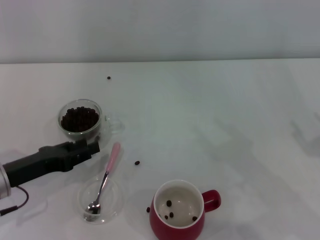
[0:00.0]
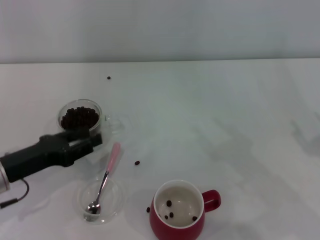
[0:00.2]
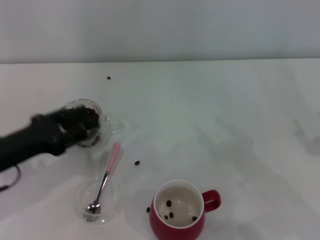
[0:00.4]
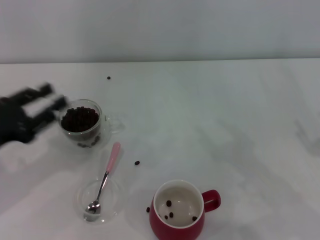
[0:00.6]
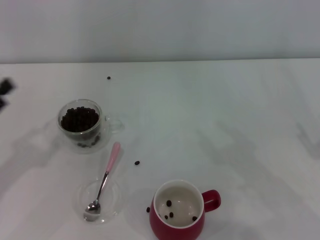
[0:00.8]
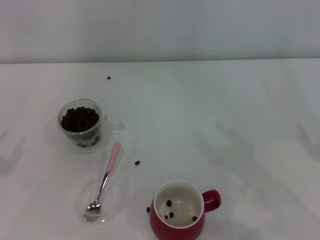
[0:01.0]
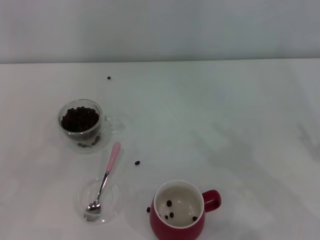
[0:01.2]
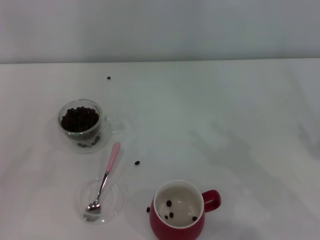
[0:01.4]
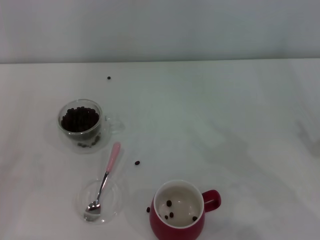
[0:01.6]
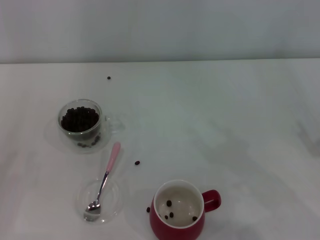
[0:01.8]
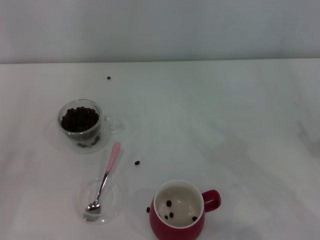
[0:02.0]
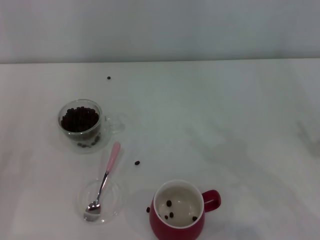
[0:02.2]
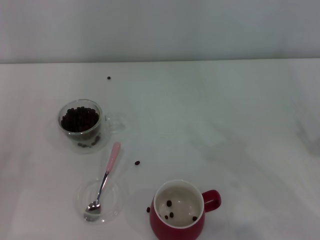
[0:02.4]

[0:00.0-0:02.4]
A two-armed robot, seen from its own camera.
Task of the whole recording: Use a pink spoon to take out the coffee beans from the glass and pour them into the red cup.
0:00.0 to 0:01.2: The left gripper shifts about 15 cm to the left and backward.

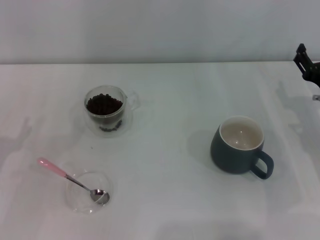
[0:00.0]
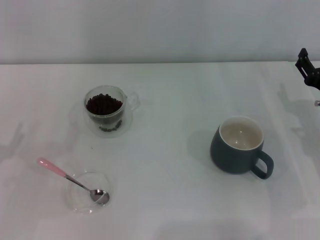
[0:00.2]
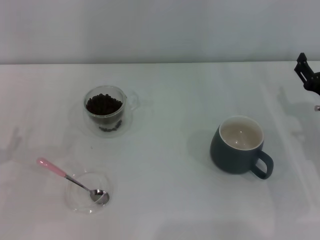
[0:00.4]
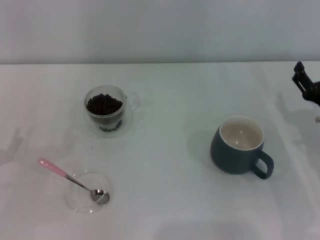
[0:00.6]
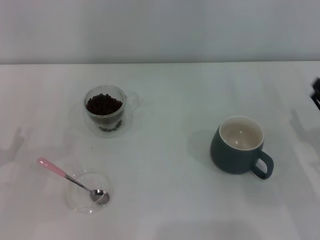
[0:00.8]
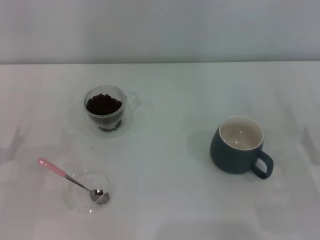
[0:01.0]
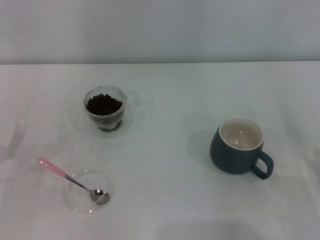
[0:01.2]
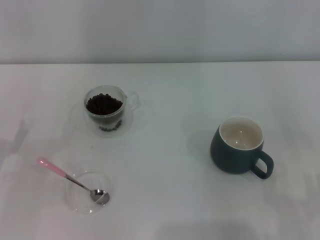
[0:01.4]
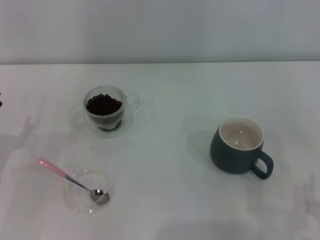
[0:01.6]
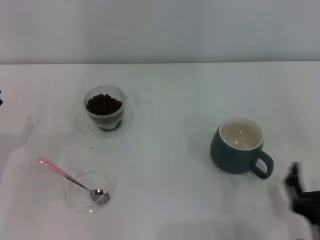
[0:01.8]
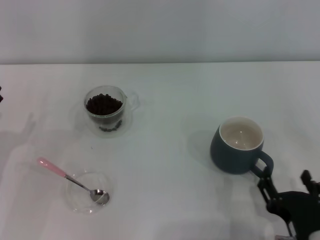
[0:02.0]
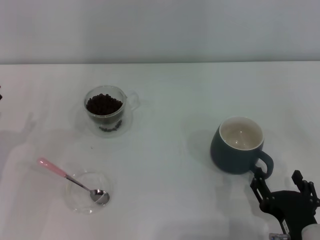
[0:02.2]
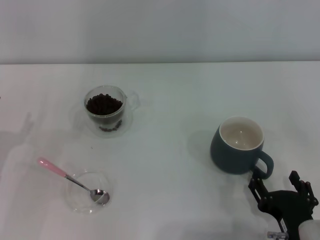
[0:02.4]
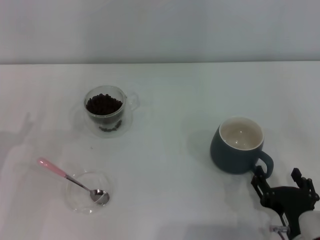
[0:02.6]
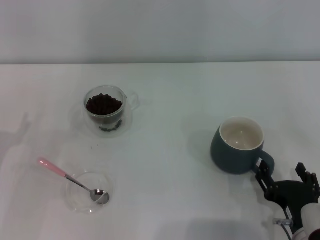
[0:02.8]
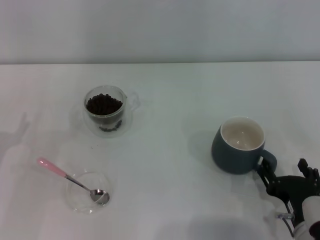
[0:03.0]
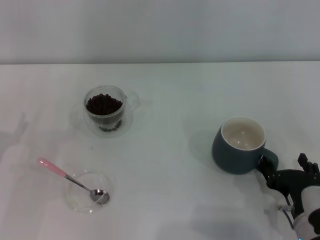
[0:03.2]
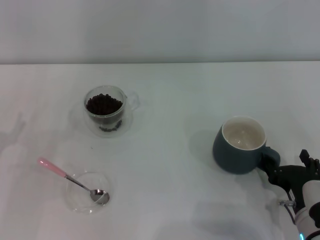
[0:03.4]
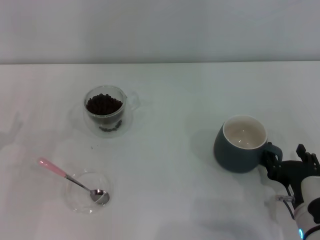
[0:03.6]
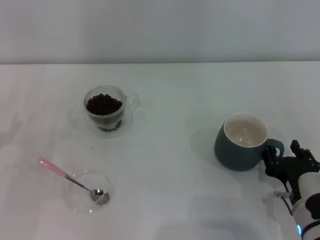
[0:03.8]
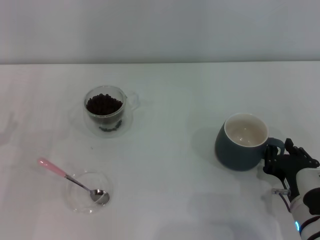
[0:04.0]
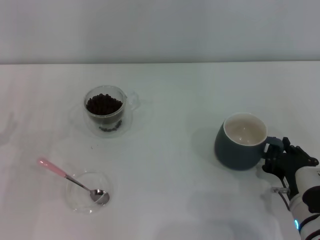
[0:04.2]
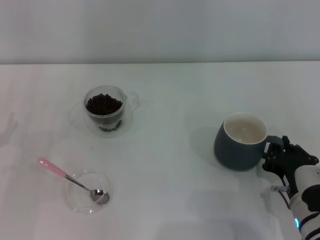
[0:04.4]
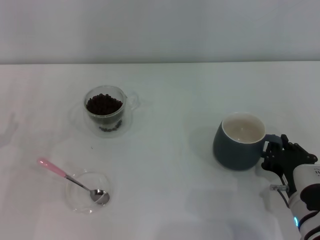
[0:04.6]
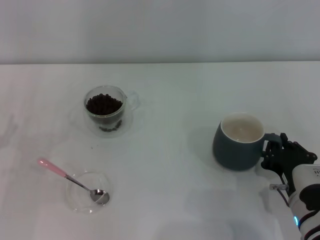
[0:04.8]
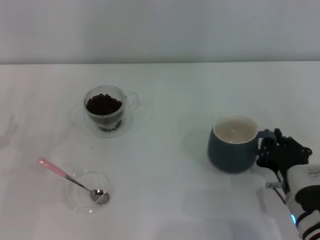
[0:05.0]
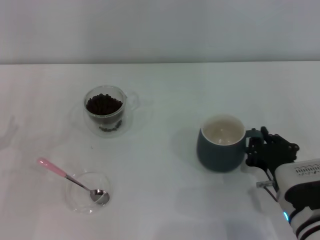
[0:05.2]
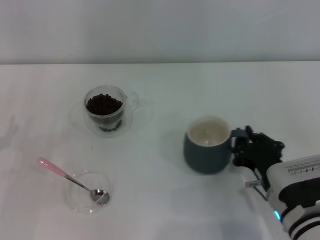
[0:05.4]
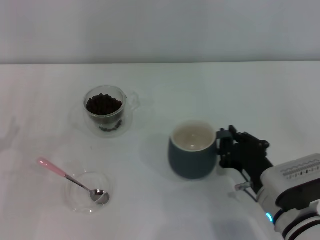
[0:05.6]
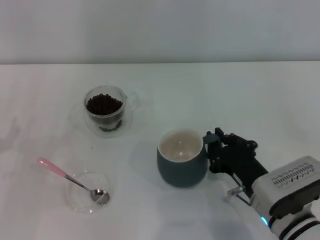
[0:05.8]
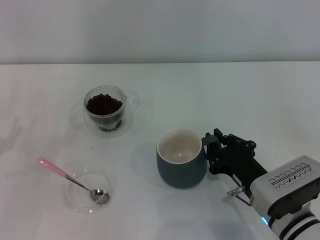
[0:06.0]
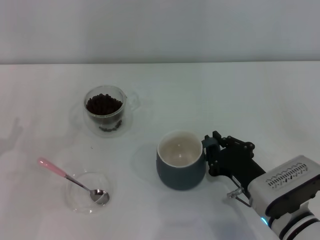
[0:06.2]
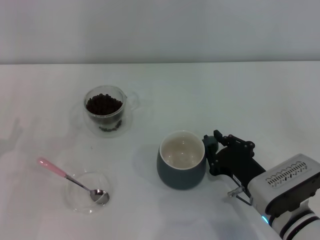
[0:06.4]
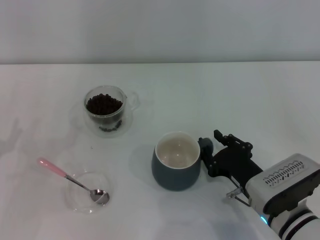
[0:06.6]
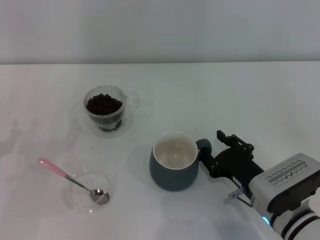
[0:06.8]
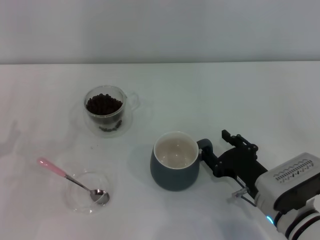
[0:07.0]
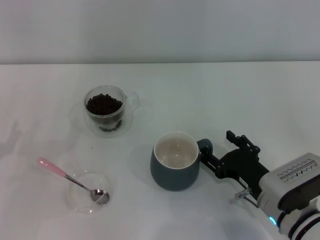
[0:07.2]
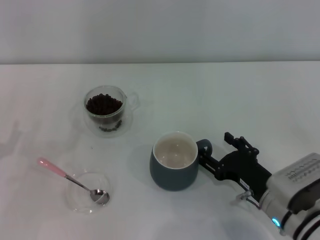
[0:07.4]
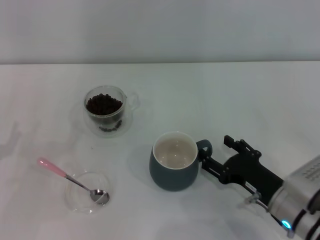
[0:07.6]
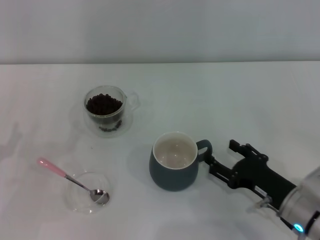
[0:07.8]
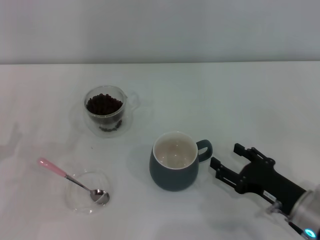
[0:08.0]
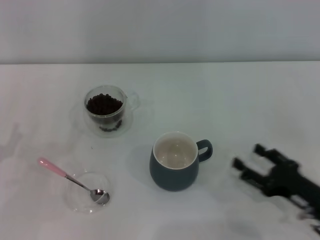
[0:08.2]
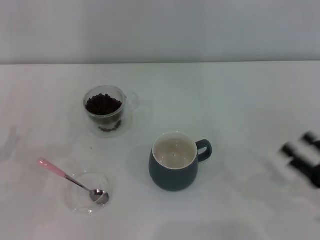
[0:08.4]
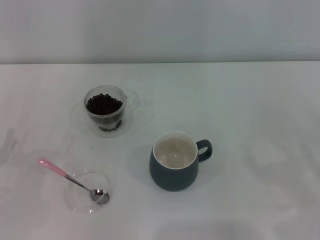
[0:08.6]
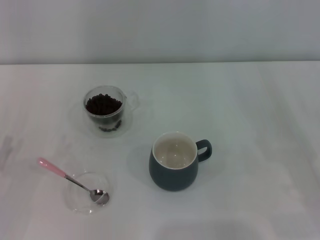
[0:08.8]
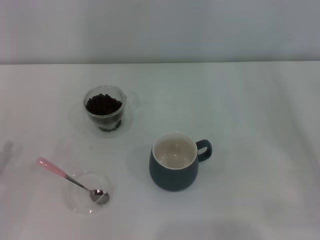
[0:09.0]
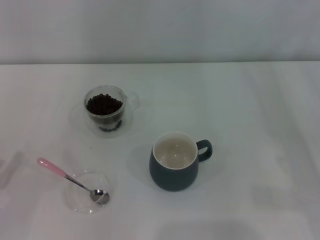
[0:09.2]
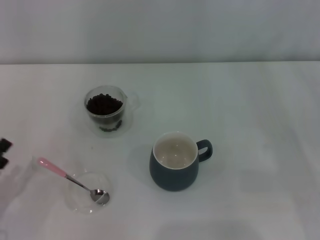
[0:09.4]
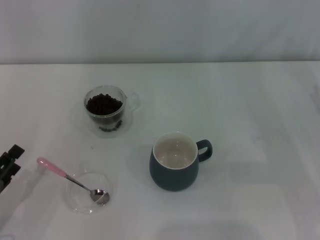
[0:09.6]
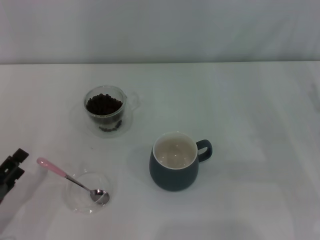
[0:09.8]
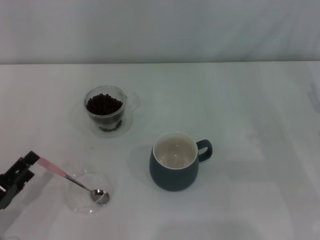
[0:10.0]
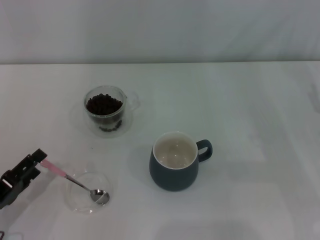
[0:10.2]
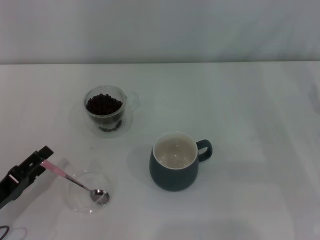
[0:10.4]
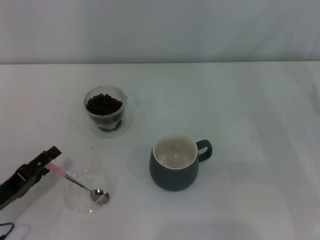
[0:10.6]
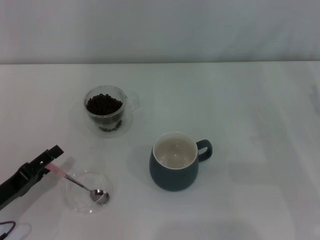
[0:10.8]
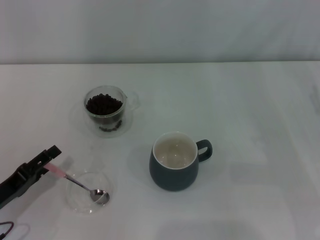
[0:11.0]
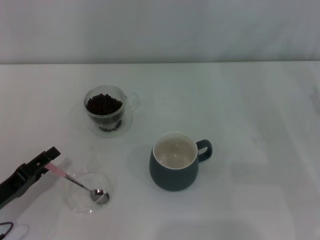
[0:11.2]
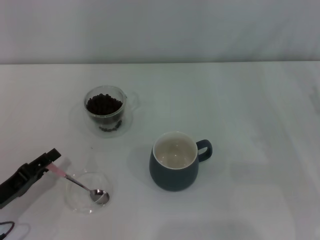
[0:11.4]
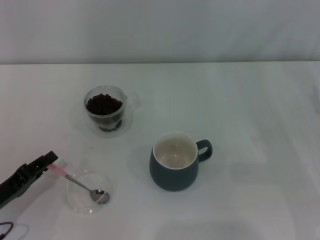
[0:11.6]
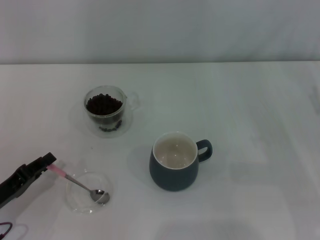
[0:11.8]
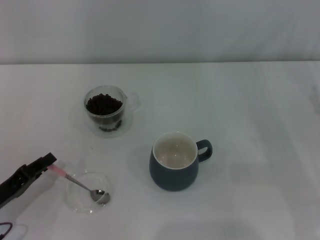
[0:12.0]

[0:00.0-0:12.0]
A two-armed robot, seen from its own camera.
Task of the whole recording: Use a pink spoon to take out the coffee beans from the glass and pour them into the gray cup.
Step, 0:00.0 to 0:08.0: Move the cup to the center of view with the left gripper.
0:00.0 to 0:01.6: The right gripper heads backward, covering approximately 25 cm.
0:01.6 to 0:03.0: The right gripper heads forward, covering about 5 cm.
0:03.0 to 0:04.4: The right gripper closes.
0:06.0 to 0:07.6: The right gripper opens.
0:07.6 to 0:09.0: The right gripper is displaced to the right by approximately 15 cm.
0:09.0 to 0:10.4: The left gripper travels to the right by approximately 5 cm.
0:10.4 to 0:12.0: The left gripper closes up.

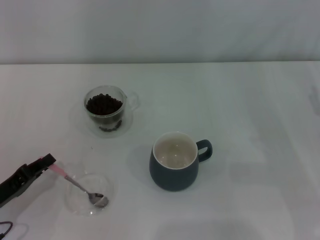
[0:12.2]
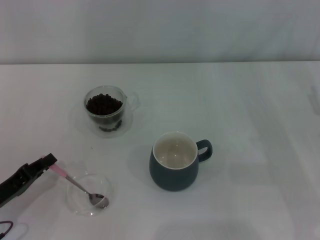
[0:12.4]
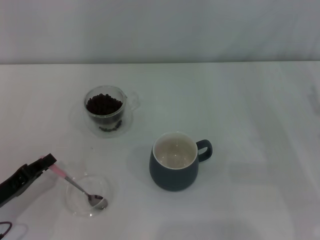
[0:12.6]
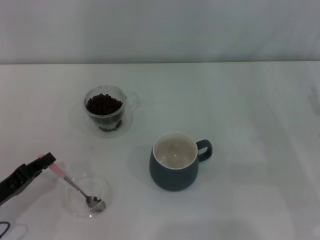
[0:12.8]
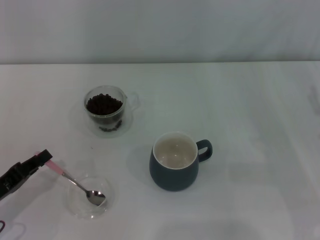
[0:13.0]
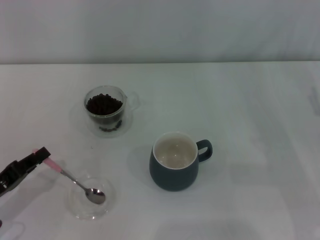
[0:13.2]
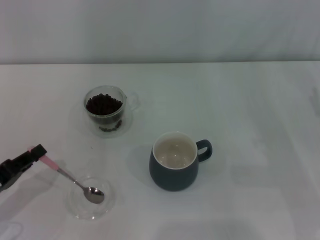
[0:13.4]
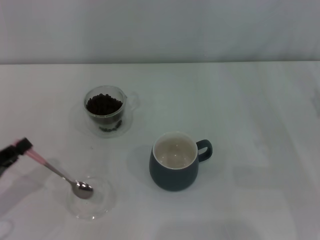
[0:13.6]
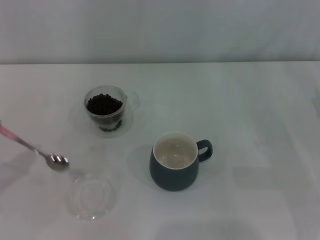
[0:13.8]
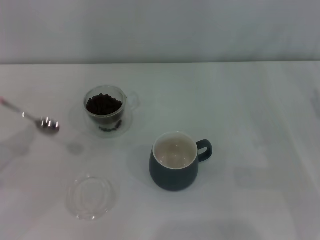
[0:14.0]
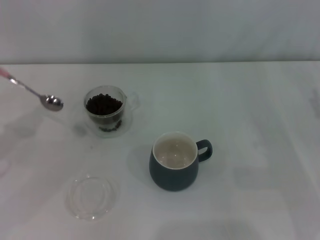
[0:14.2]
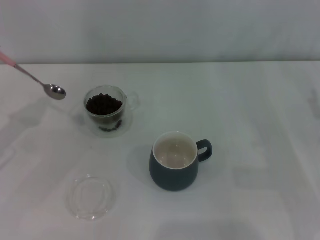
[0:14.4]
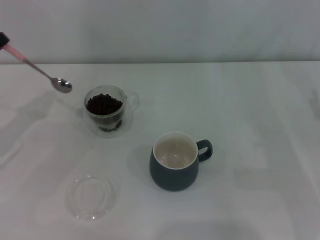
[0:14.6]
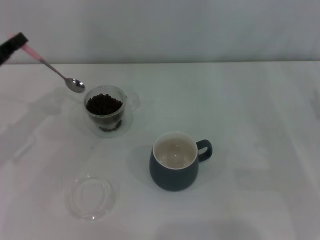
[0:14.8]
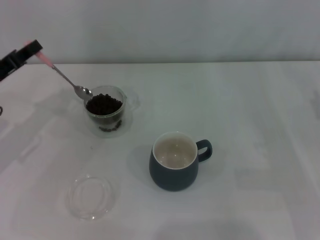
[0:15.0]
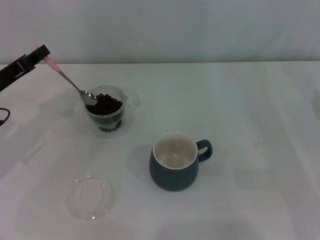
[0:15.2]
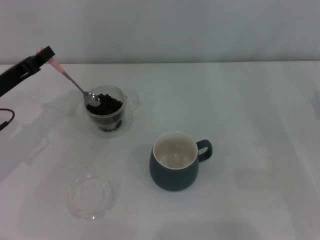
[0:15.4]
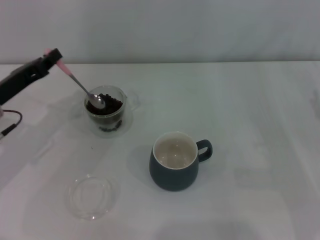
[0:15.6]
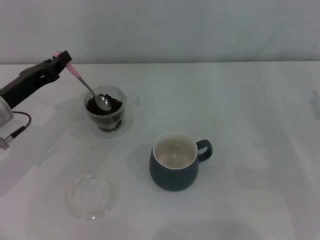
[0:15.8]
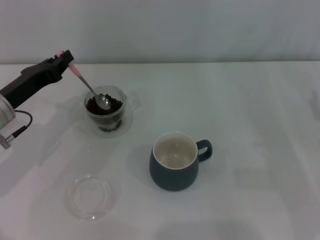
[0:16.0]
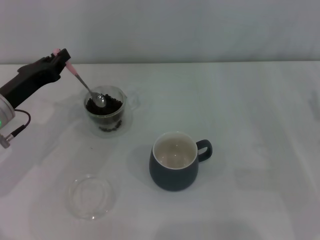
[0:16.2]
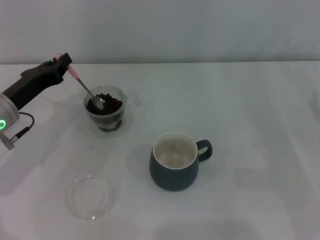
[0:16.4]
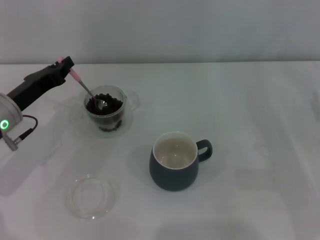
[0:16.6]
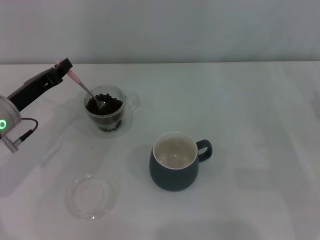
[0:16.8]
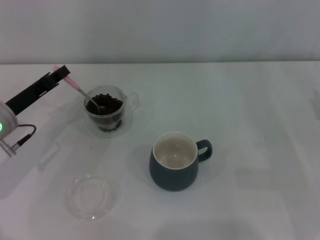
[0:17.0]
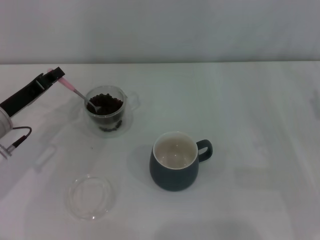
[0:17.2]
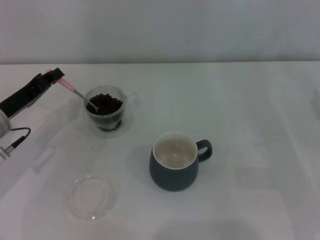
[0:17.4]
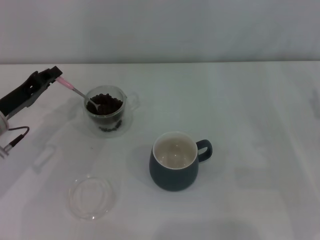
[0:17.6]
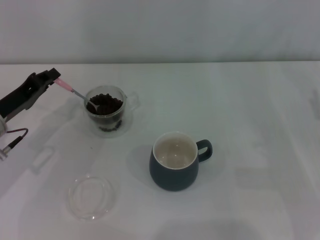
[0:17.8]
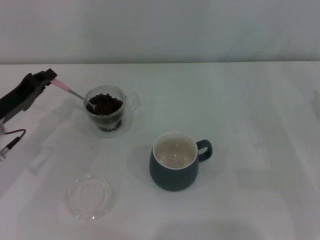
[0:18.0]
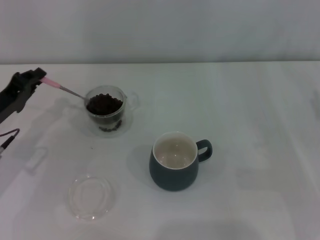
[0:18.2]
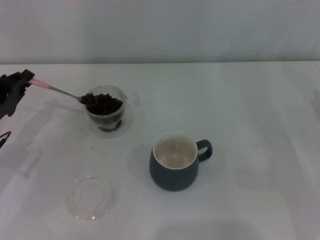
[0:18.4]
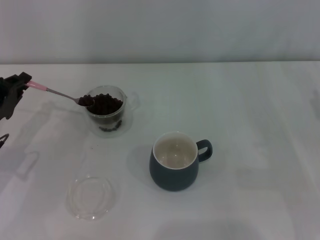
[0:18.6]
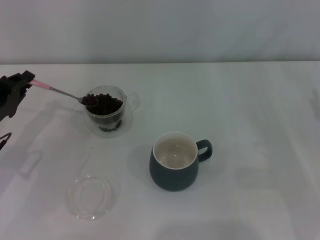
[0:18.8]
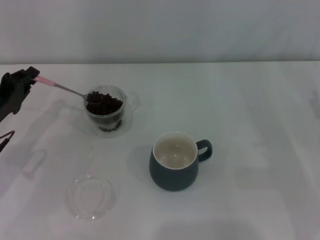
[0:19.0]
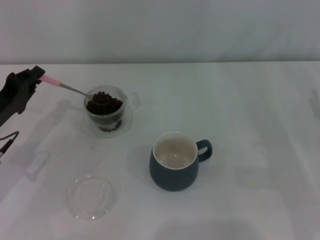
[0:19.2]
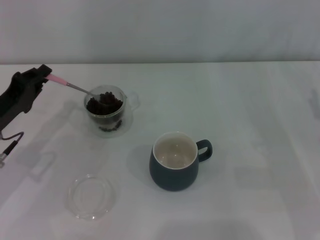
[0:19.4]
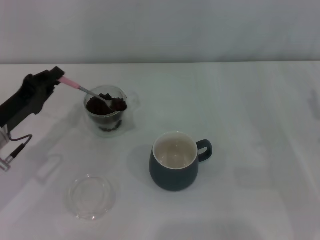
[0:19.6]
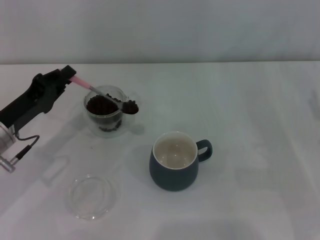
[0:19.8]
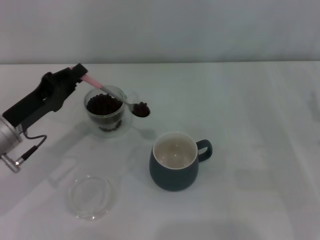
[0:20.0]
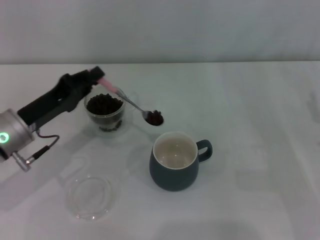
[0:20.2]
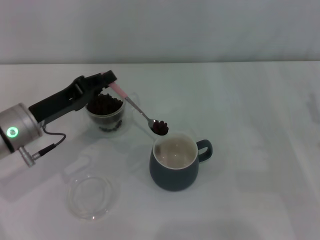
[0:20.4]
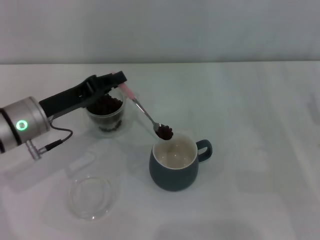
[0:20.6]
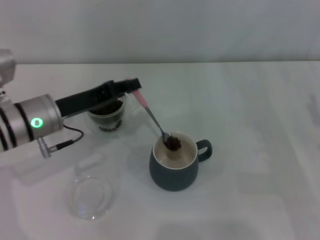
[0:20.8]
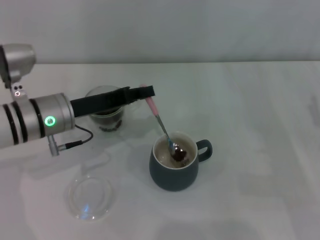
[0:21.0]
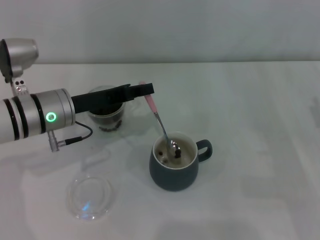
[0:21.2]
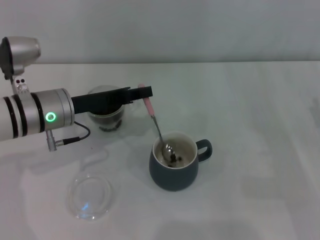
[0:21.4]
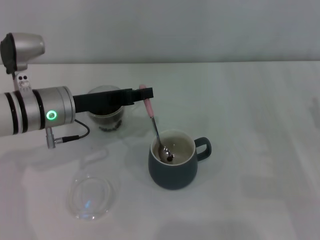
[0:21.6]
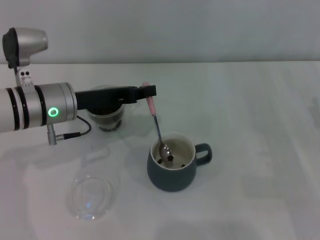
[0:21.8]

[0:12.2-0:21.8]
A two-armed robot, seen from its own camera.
Task of the whole recording: Use a pink spoon to take out the coffee beans from the glass and pour them into the gray cup.
0:12.2 to 0:13.8: The left gripper heads upward and to the left, covering approximately 10 cm.
0:13.8 to 0:15.4: The left gripper goes some 15 cm forward and to the right.
0:15.4 to 0:17.0: The grippers stay close to where they were, moving slightly.
0:18.6 to 0:20.2: The left gripper is displaced to the right by roughly 5 cm.
0:20.2 to 0:21.8: The left gripper travels to the right by approximately 5 cm.
